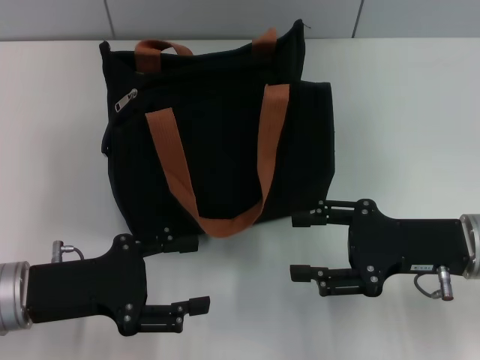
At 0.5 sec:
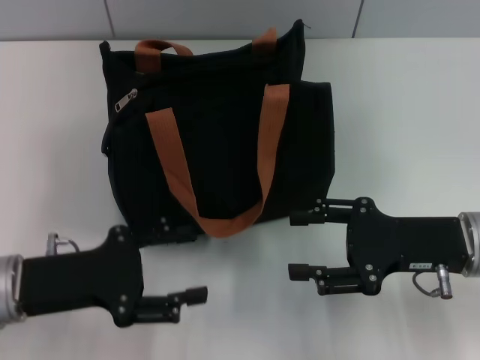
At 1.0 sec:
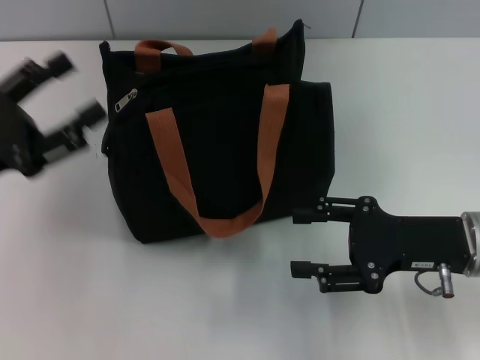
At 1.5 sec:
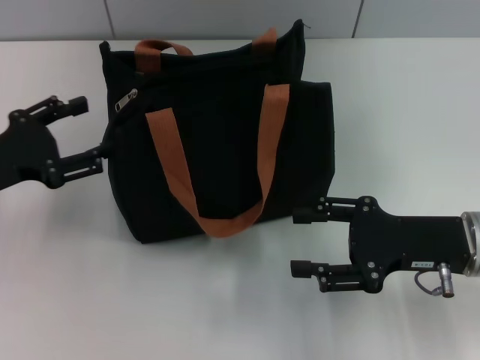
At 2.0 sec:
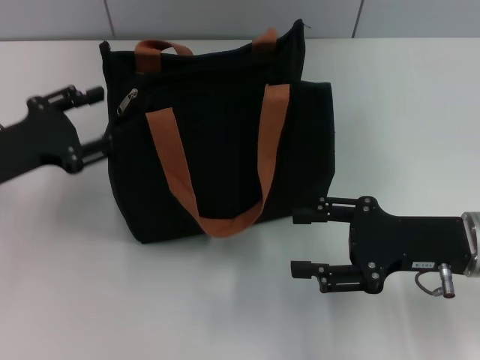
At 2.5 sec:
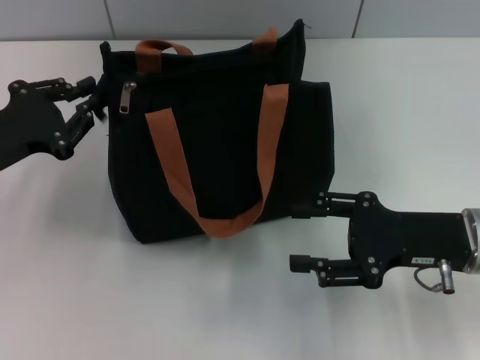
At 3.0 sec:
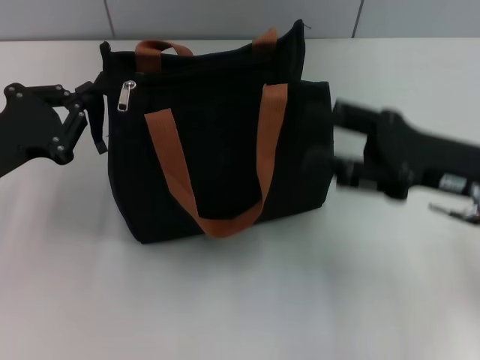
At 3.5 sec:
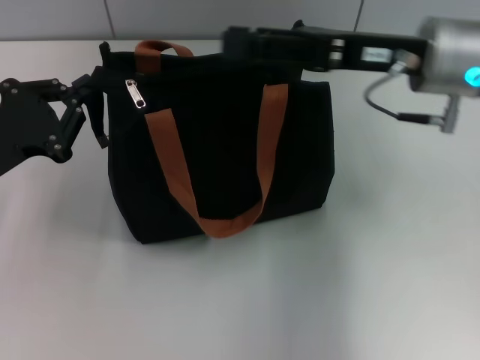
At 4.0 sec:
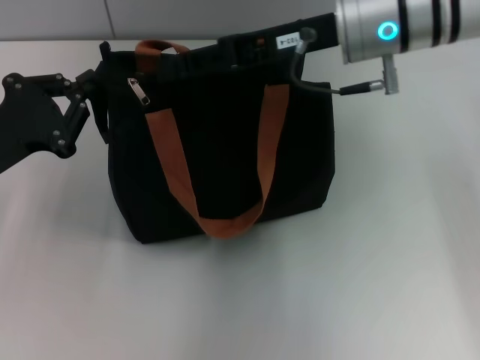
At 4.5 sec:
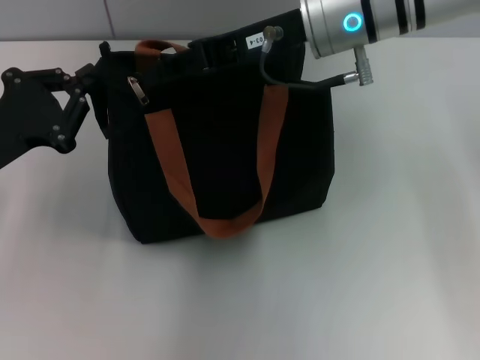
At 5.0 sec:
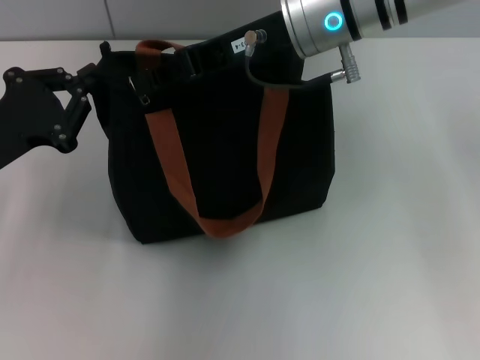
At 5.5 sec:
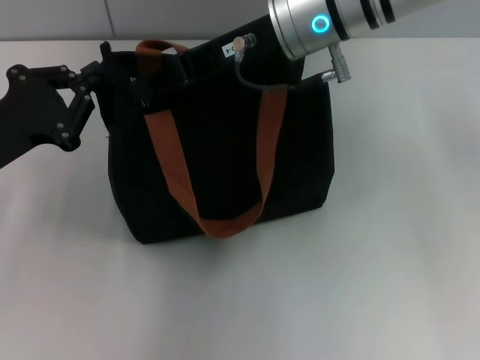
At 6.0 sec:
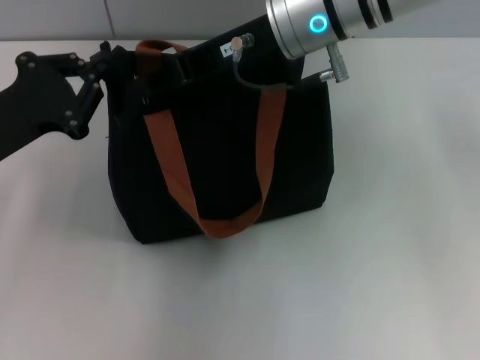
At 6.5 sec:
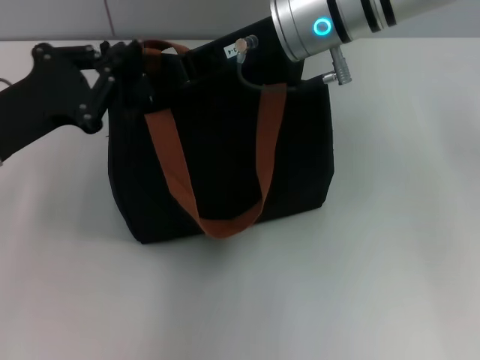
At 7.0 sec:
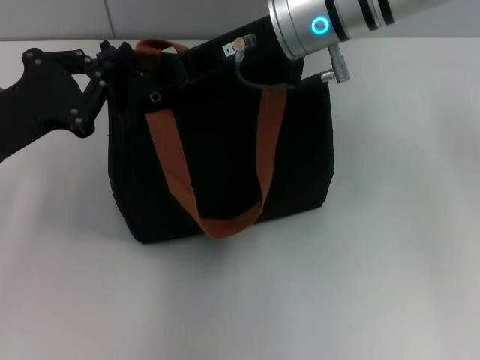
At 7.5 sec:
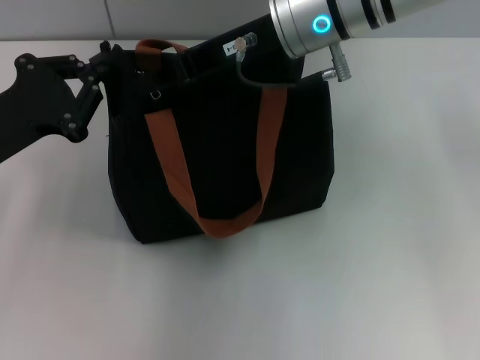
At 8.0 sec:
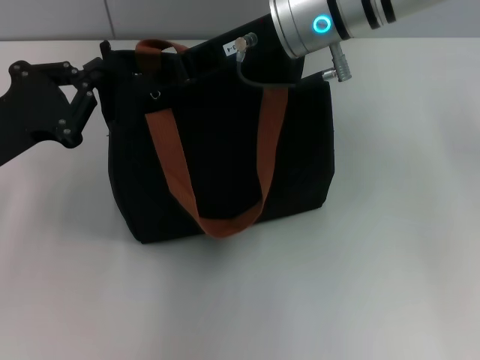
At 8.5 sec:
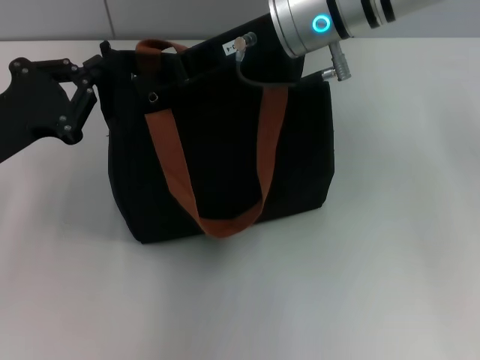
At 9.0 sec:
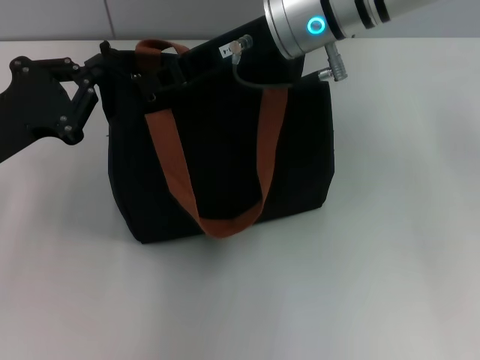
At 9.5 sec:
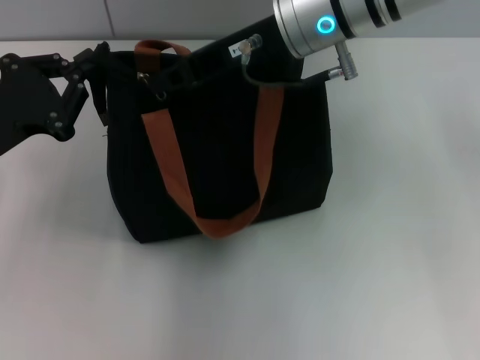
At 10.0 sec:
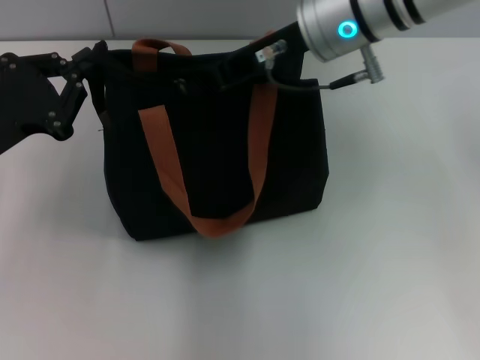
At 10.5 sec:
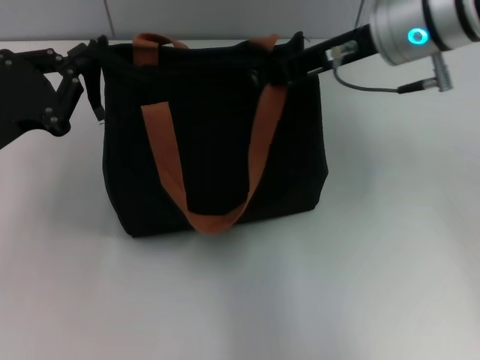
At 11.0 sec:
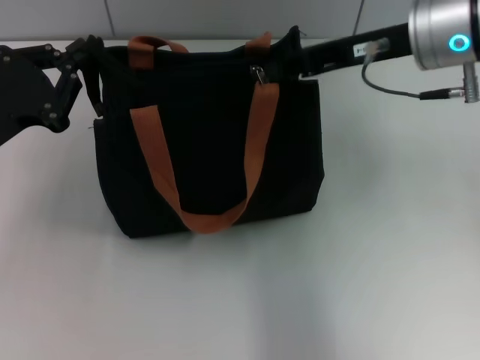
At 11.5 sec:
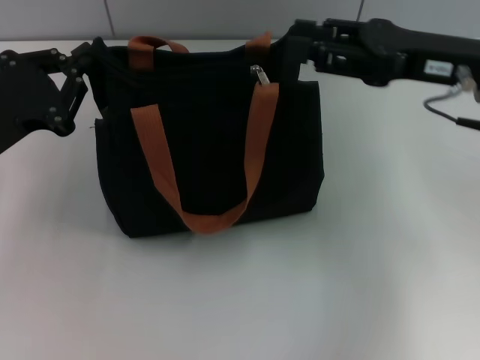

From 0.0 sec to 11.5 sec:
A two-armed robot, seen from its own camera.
Step, from 0.0 sec to 10.5 sec: Pull up the zipper with your right hand.
From 0.0 sec to 2.0 sec: The left gripper moves forward and to the left, about 10 cm.
From 2.0 sec to 4.0 sec: The left gripper closes its fingers; the right gripper travels upward, forward and to the left by some 25 cm.
From 4.0 sec to 6.0 sec: The right gripper goes about 5 cm to the left, and closes.
From 6.0 sec to 7.5 sec: The grippers move only a little.
From 7.5 sec to 9.5 sec: Both grippers stay about where they are.
From 9.5 sec to 11.5 sec: The right gripper moves to the right and backward, roughly 15 cm, and opens its fingers.

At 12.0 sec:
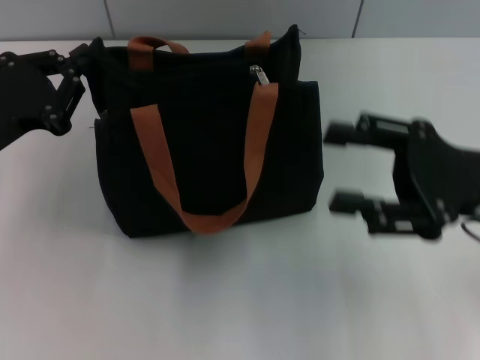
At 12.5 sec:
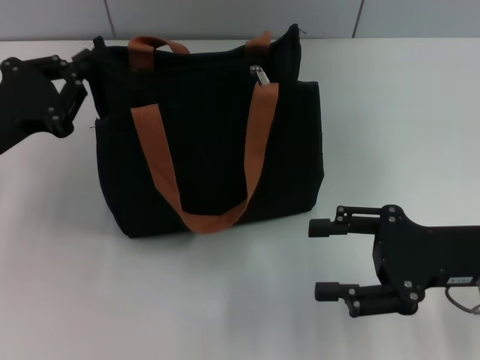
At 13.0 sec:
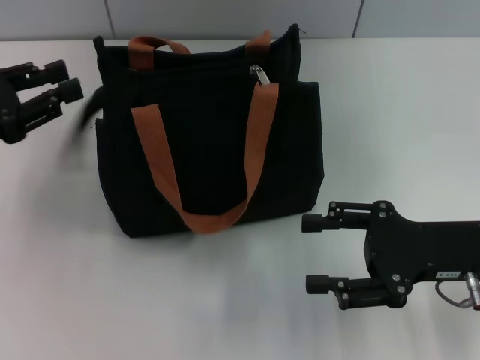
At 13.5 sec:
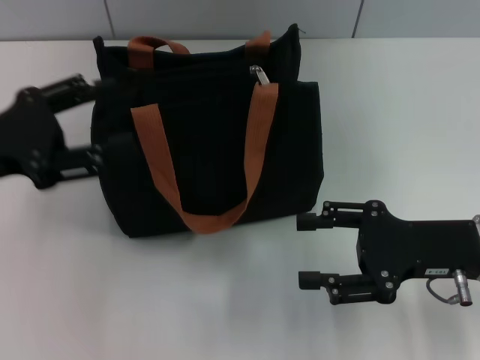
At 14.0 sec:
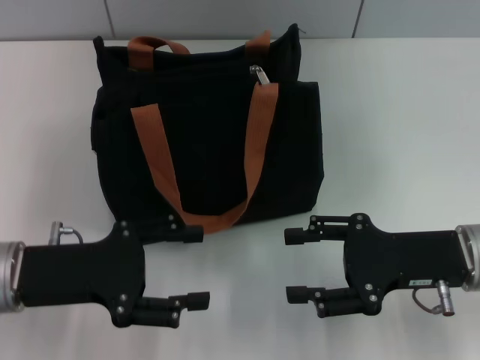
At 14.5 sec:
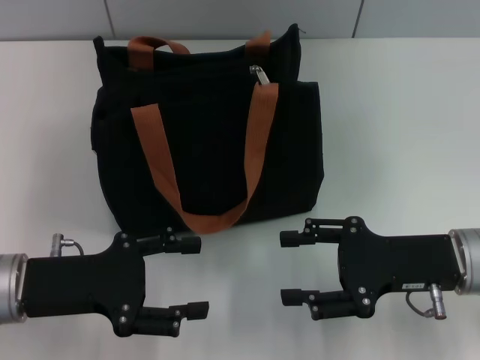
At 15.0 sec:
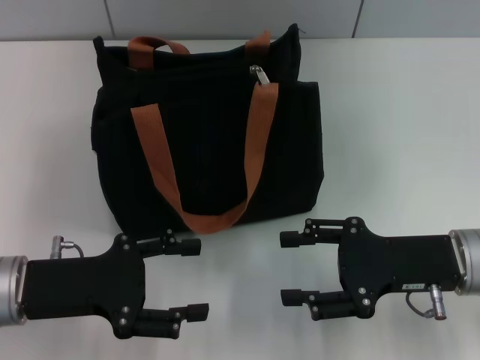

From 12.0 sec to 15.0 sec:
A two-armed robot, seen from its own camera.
From 12.0 sec to 13.5 sec: The left gripper opens its fingers.
From 13.5 sec to 15.0 sec: The left gripper moves downward, roughly 10 cm.

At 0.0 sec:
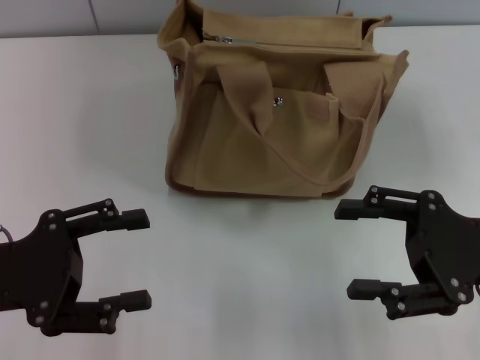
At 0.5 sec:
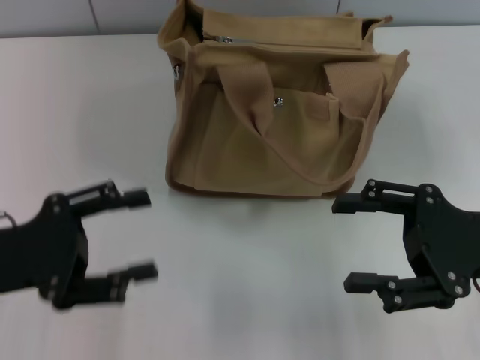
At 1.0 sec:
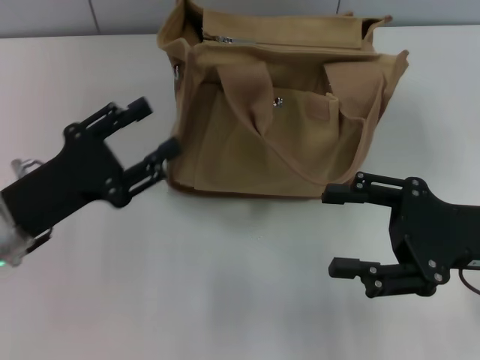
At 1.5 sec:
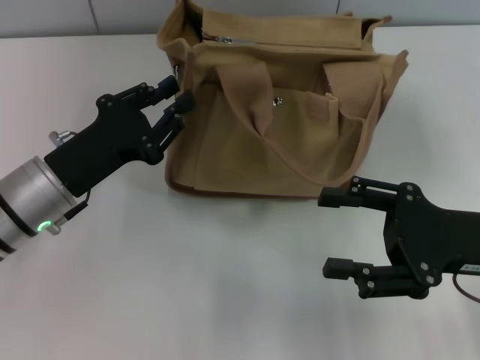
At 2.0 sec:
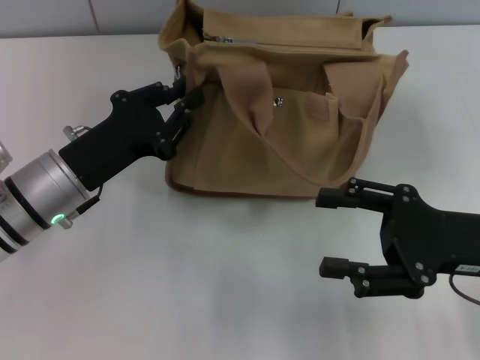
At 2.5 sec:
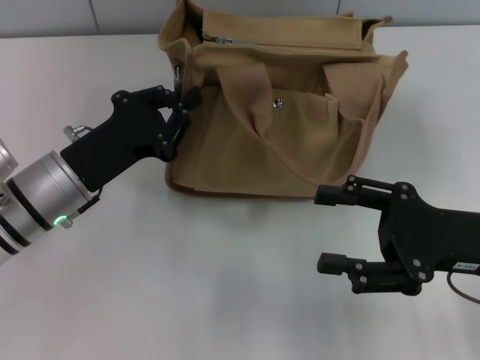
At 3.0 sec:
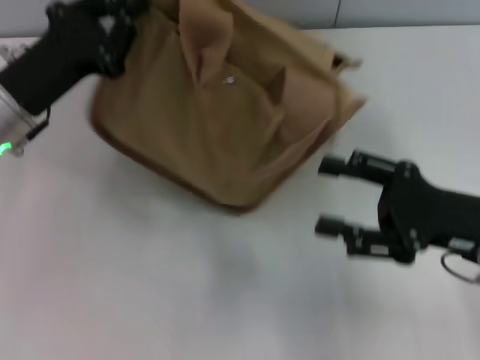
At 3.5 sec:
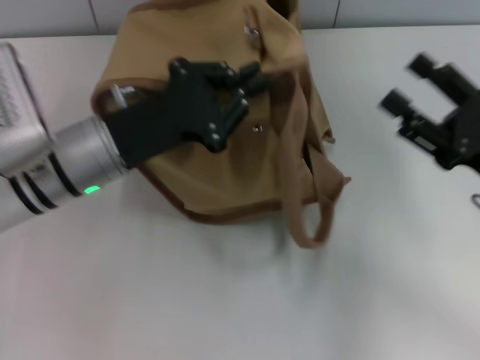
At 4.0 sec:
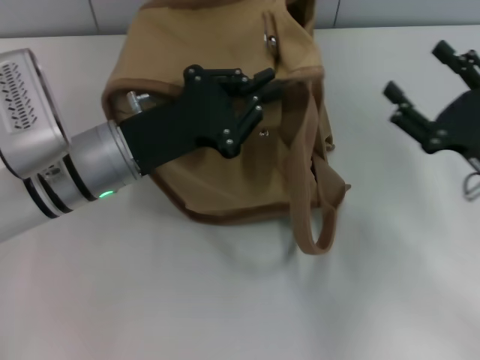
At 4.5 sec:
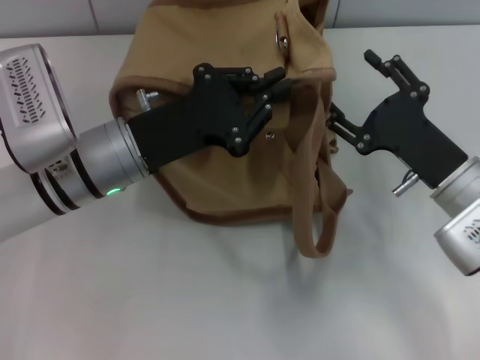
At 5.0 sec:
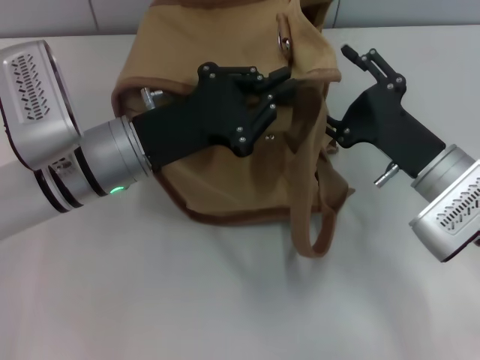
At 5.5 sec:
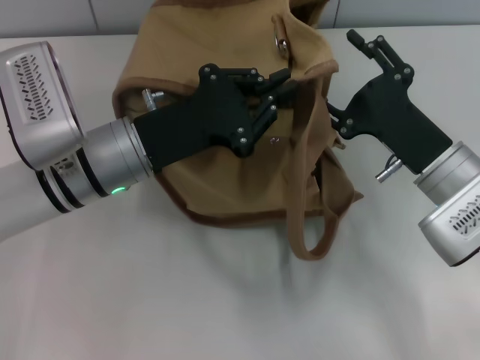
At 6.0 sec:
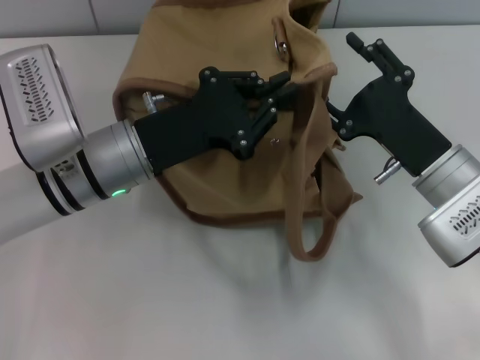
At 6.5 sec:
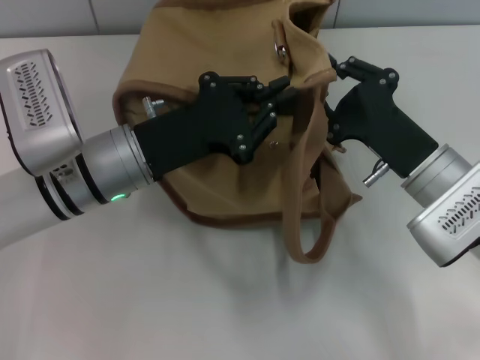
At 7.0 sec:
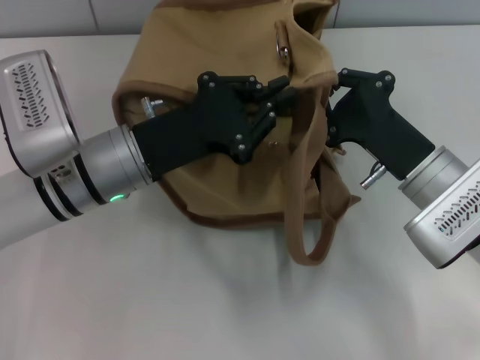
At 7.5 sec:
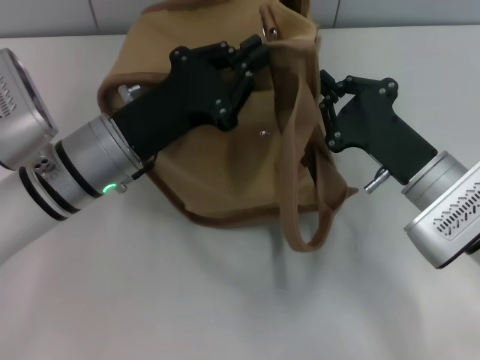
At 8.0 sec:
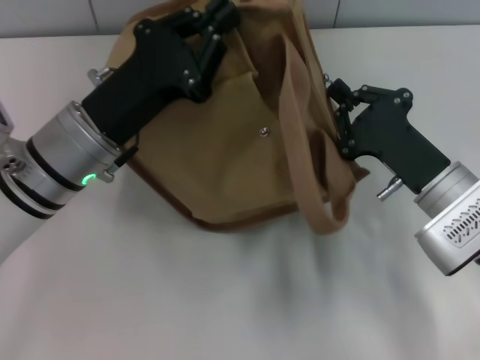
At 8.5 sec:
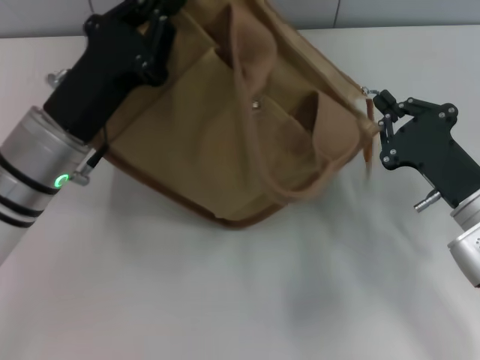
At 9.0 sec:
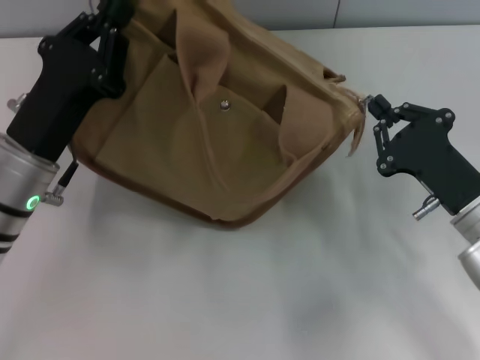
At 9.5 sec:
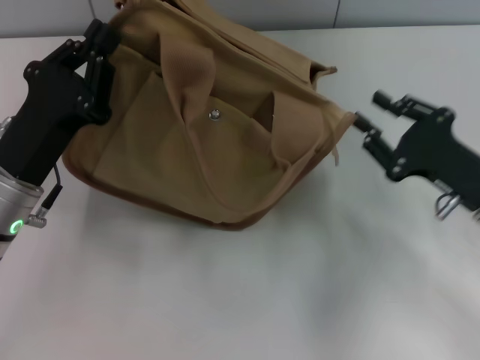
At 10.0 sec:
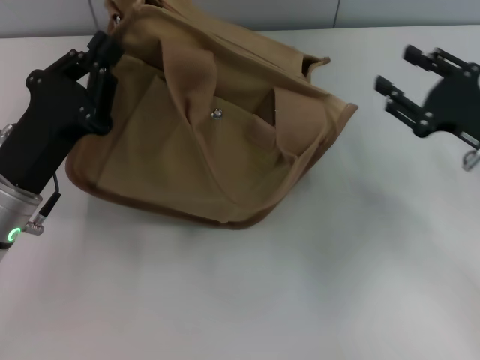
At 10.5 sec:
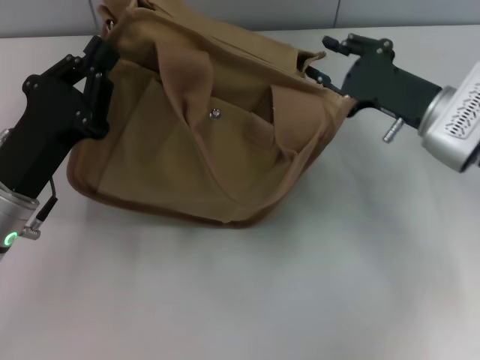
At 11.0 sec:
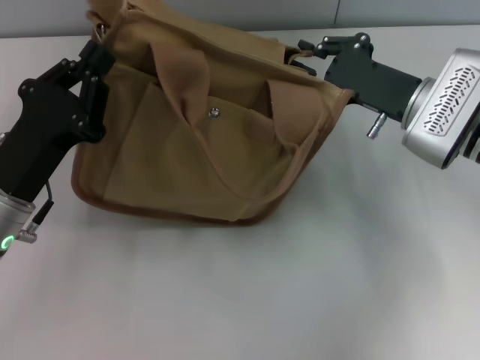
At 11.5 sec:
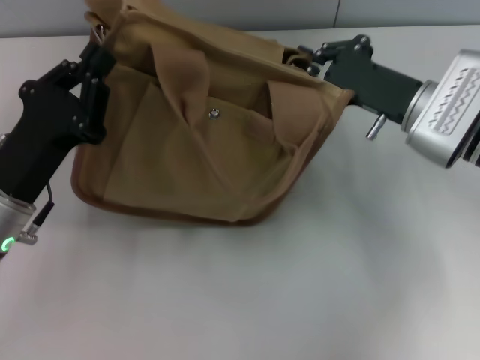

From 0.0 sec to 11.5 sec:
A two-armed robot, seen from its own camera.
Step, from 0.0 sec to 9.0 sec: Pull open the zipper with your right hand.
From 0.0 sec to 2.0 sec: The left gripper is displaced forward and to the right by approximately 10 cm, and closes up.
From 2.0 sec to 4.0 sec: The left gripper changes place by approximately 5 cm.
From 4.0 sec to 6.0 sec: The right gripper is displaced to the left by some 5 cm.
From 6.0 sec to 7.5 sec: The right gripper closes.
From 7.5 sec to 9.5 sec: The left gripper heads to the left, covering some 5 cm. Meanwhile the right gripper is displaced to the right by approximately 5 cm.
From 9.5 sec to 11.5 sec: The right gripper is displaced forward and to the left by roughly 10 cm, and opens and closes again.
